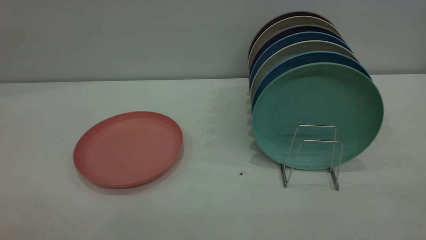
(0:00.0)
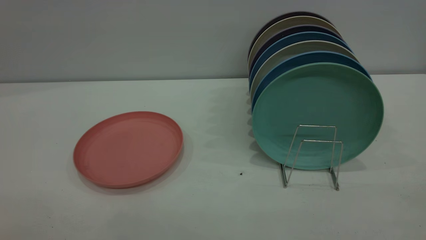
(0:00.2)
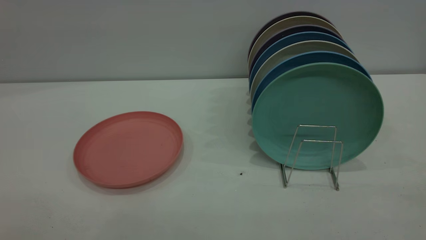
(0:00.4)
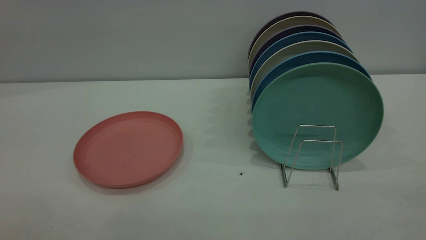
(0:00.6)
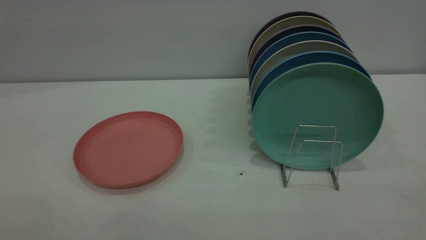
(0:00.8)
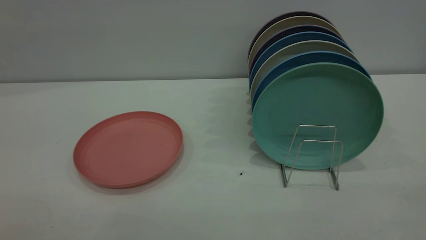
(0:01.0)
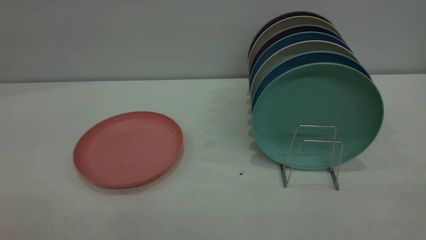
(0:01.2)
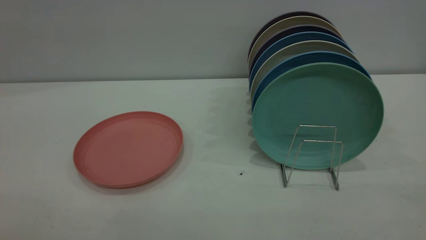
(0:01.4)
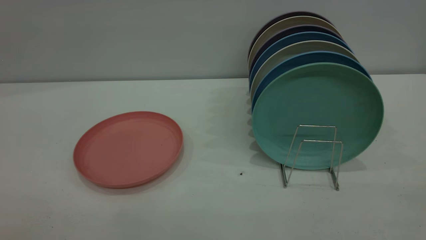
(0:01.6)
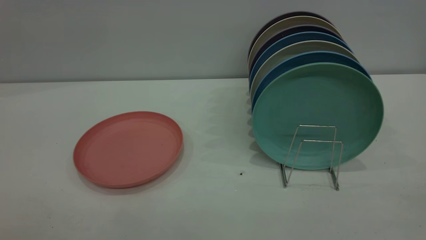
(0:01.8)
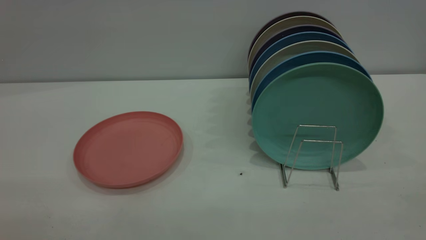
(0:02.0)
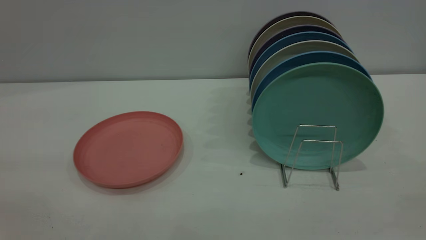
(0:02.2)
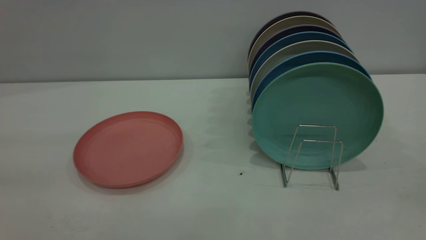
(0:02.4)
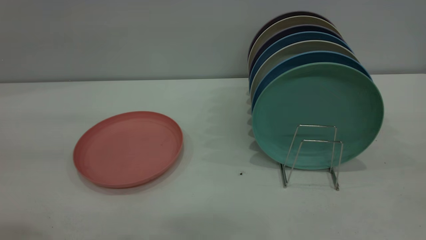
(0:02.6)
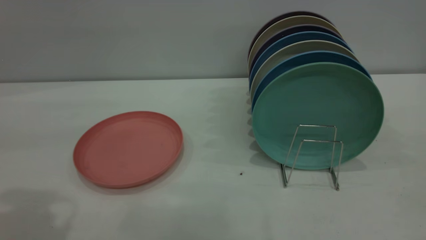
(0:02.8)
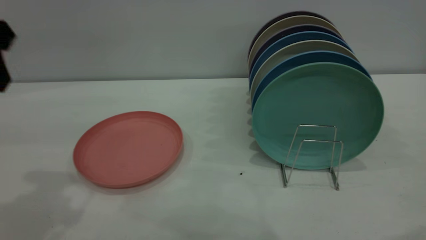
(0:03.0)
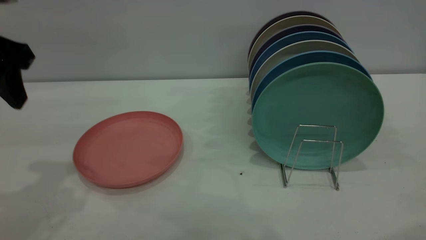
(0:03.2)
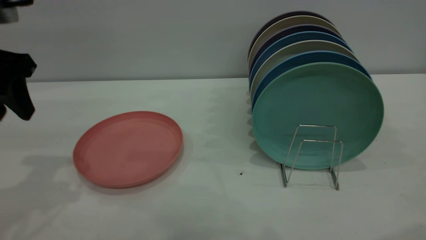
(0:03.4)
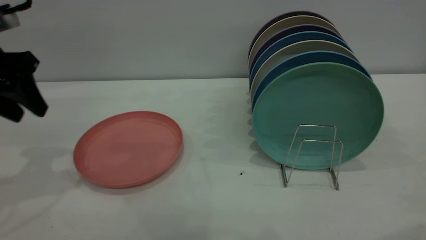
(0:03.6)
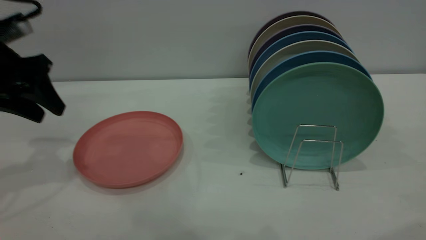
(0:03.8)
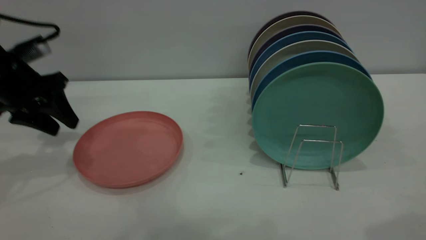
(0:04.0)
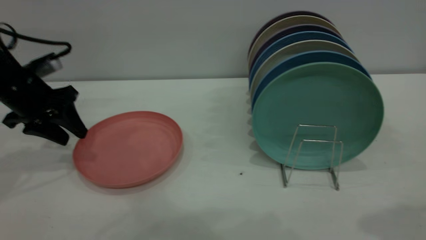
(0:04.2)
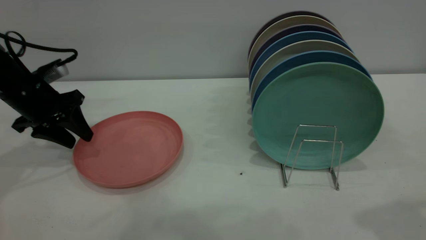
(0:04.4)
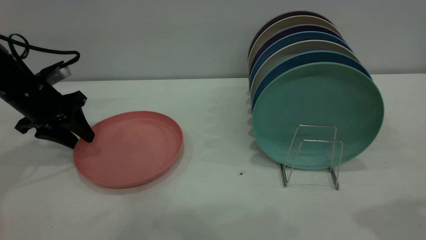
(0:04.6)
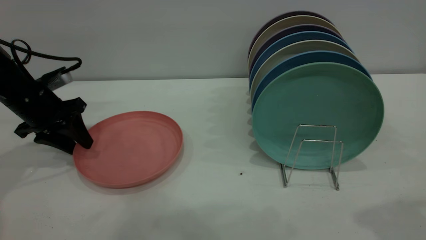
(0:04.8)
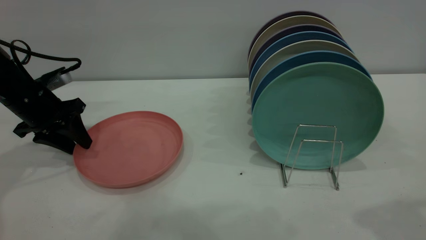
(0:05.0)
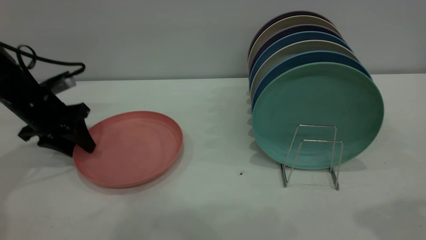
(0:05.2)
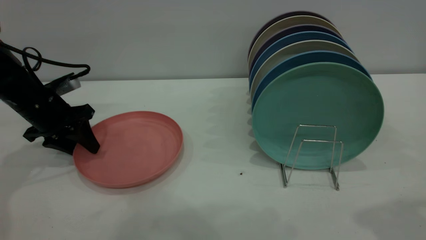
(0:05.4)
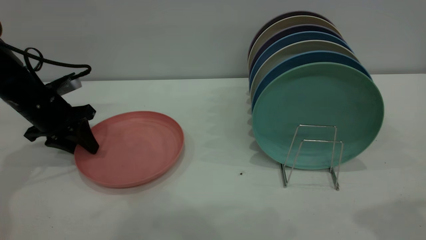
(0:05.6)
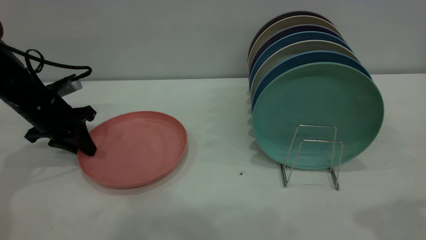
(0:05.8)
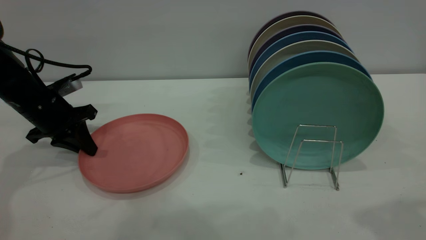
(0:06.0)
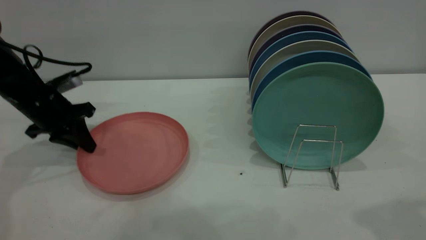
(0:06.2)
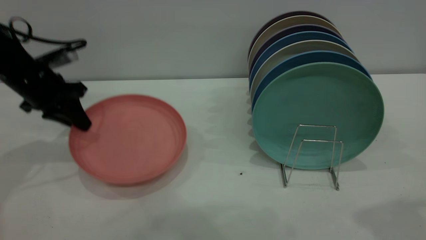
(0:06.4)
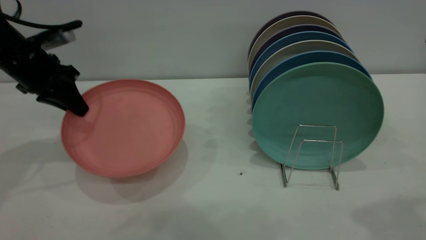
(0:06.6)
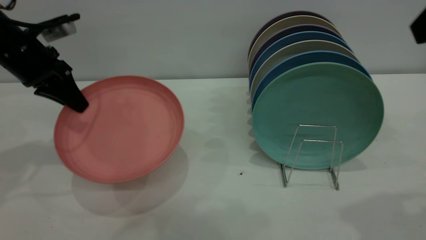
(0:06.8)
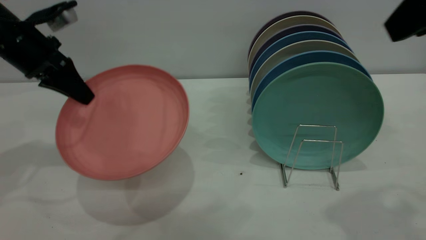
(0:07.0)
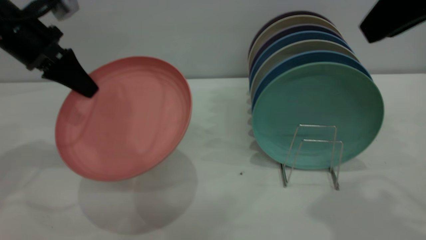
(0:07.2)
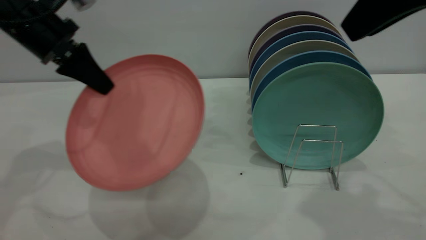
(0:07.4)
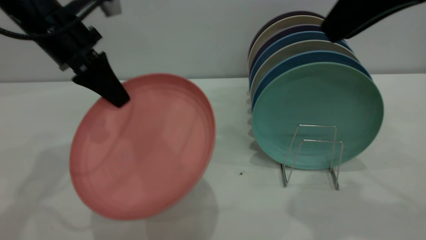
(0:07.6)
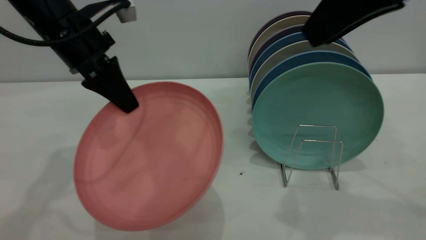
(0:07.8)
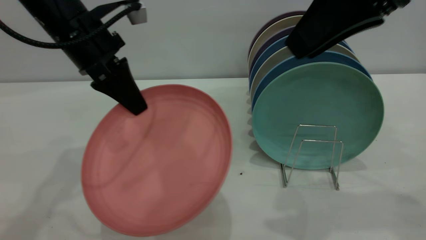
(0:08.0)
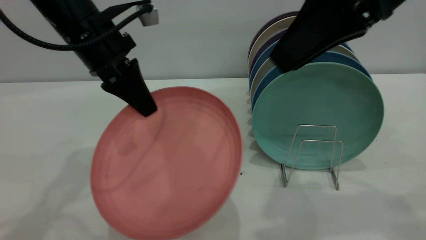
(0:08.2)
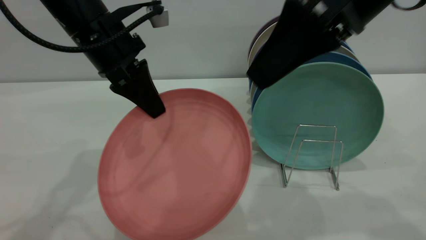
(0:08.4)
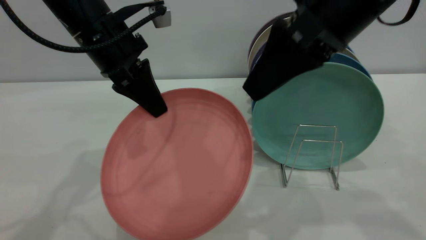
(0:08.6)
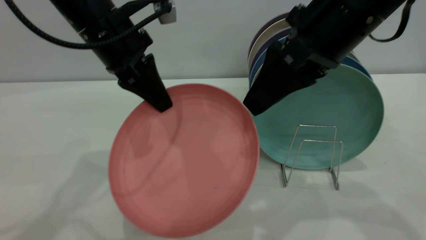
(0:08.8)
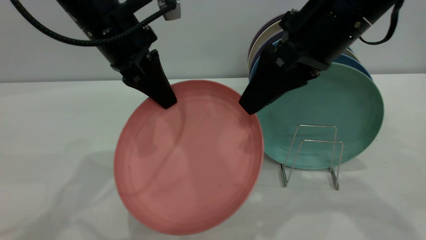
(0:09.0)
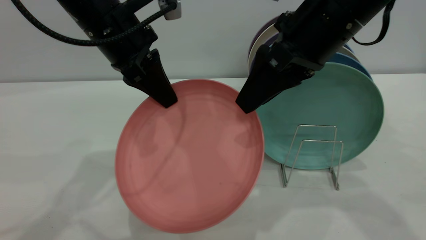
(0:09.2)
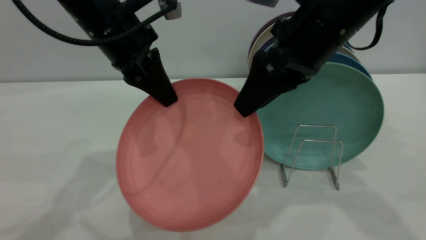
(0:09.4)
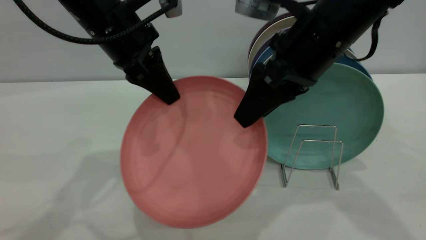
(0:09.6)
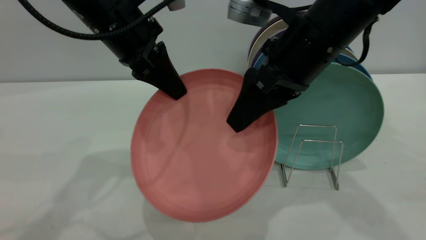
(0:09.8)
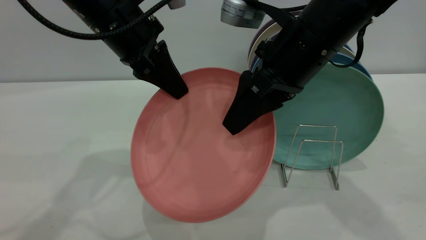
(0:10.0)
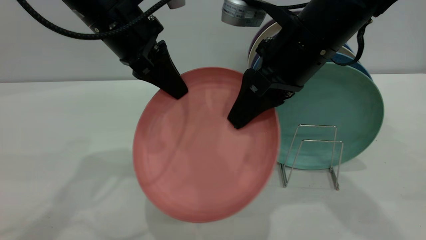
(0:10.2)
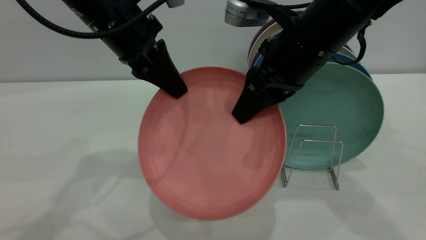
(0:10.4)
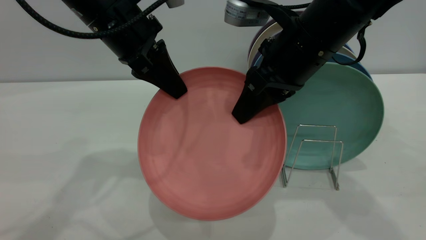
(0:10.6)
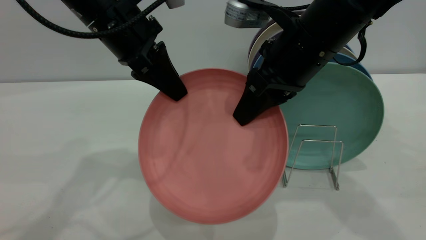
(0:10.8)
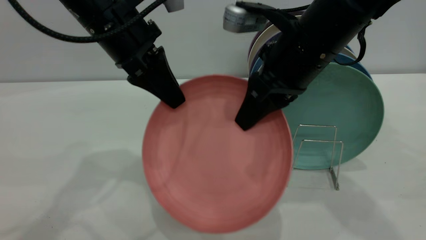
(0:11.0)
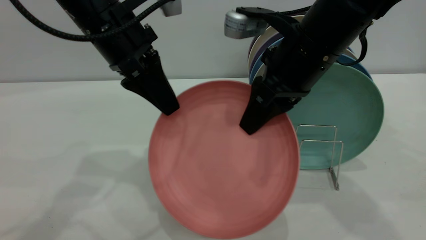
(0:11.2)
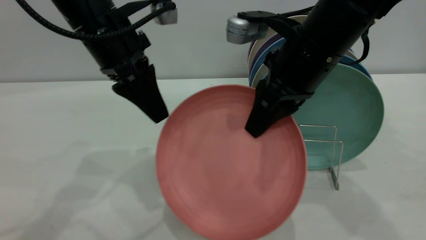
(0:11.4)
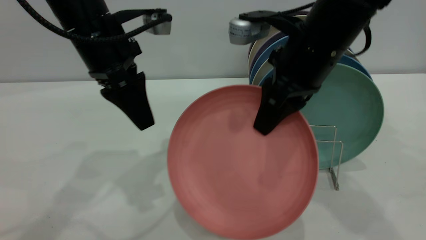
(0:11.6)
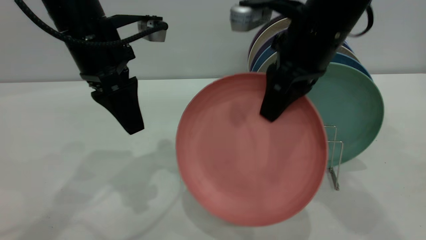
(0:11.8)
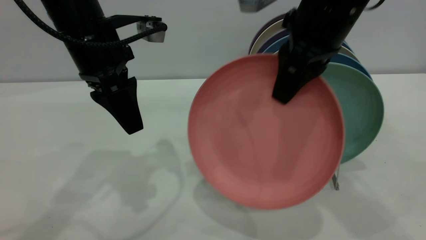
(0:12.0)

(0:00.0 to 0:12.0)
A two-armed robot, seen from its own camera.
Task of the whole recording: put the plate on the plate rack.
Step, 0:00.0 - 0:06.6: Pick up the plate with the left gripper.
Step, 0:06.8 - 0:11.4: Pass the plate from the left gripper to the right gripper.
0:01.6 - 0:03.0: The left gripper goes about 30 cm forward.
0:03.0 - 0:04.4: The left gripper travels downward and forward by roughly 25 cm.
0:04.4 - 0:06.0: The left gripper closes.
0:06.0 - 0:07.6: The right gripper travels forward and to the left by about 10 cm. Meanwhile the left gripper is displaced upward and to the right by roughly 15 cm.
0:07.6 - 0:09.0: The left gripper heads to the right, covering some 5 cm. The right gripper travels downward and to the left by about 10 cm.
0:09.0 - 0:10.4: The right gripper closes.
0:10.4 - 0:12.0: The left gripper opens its fingers. Meanwhile the right gripper heads upward, covering roughly 5 cm.

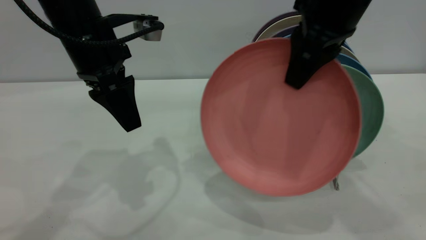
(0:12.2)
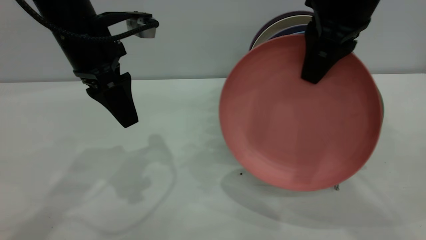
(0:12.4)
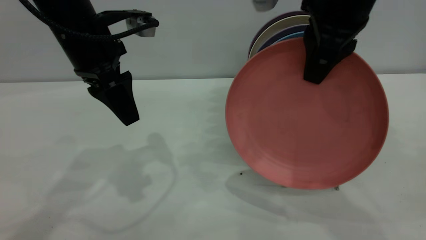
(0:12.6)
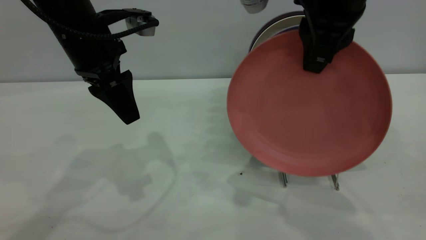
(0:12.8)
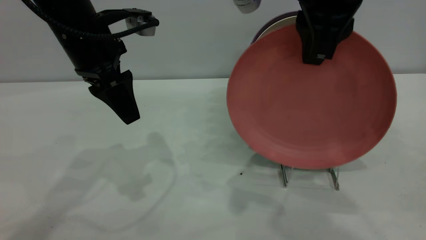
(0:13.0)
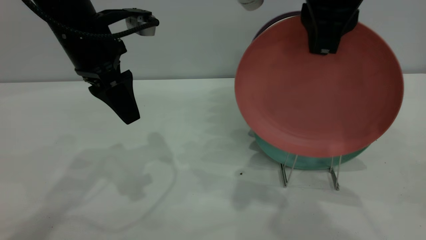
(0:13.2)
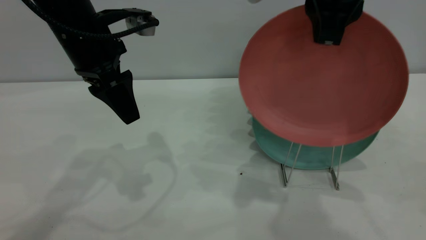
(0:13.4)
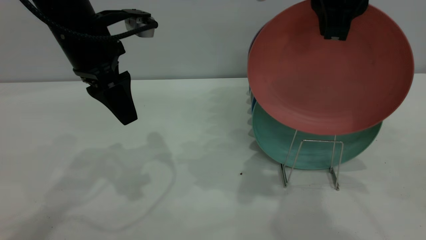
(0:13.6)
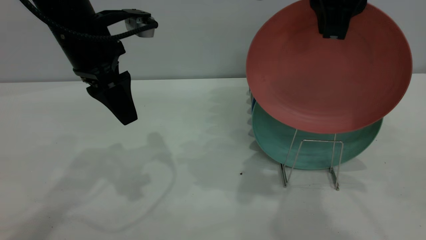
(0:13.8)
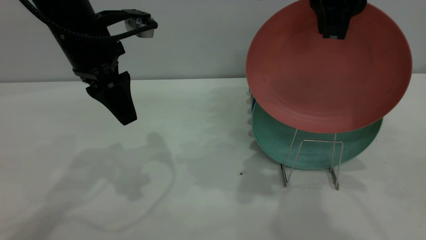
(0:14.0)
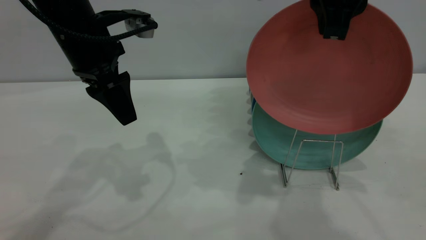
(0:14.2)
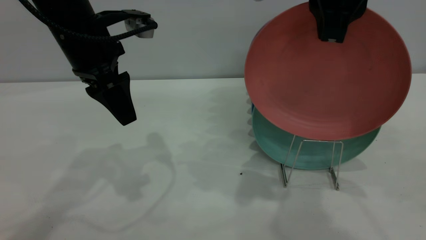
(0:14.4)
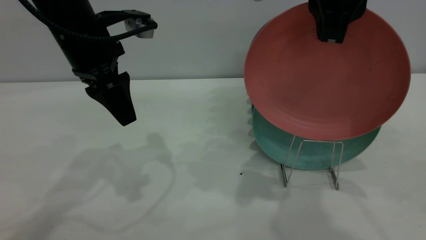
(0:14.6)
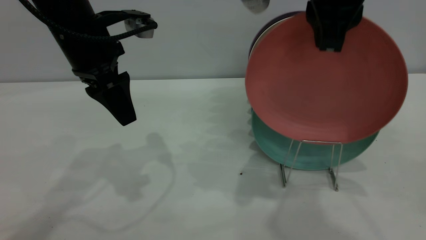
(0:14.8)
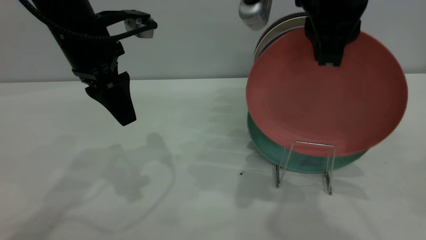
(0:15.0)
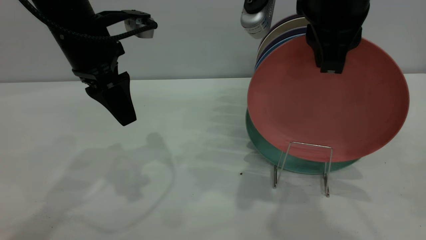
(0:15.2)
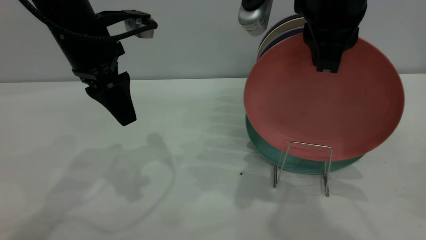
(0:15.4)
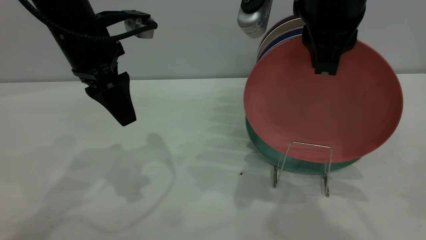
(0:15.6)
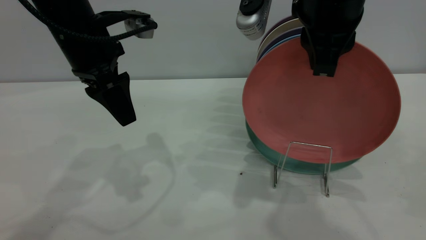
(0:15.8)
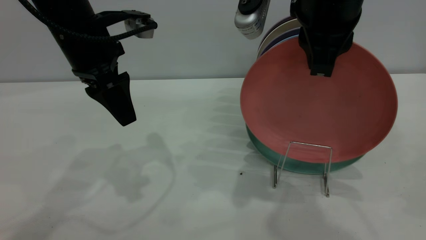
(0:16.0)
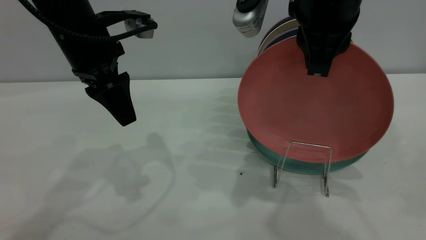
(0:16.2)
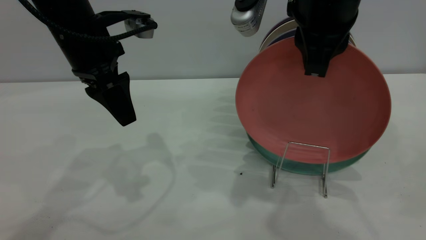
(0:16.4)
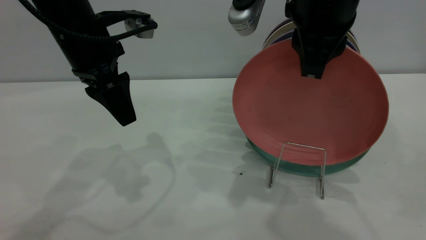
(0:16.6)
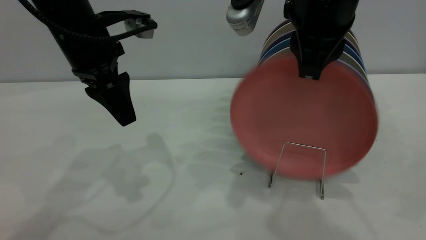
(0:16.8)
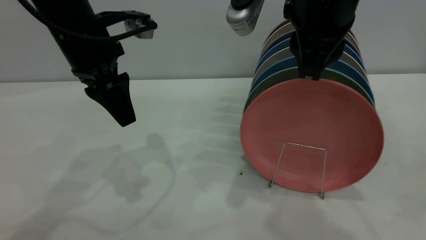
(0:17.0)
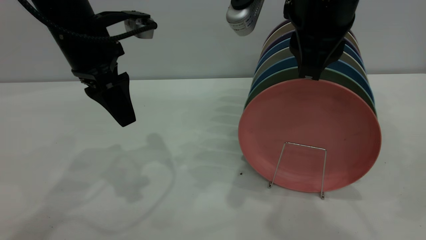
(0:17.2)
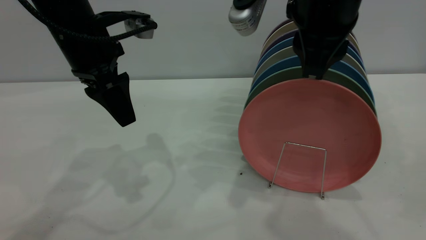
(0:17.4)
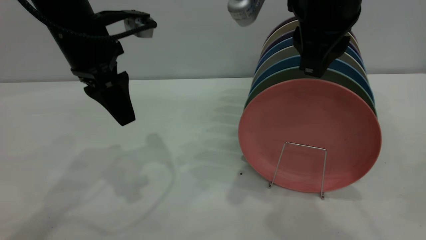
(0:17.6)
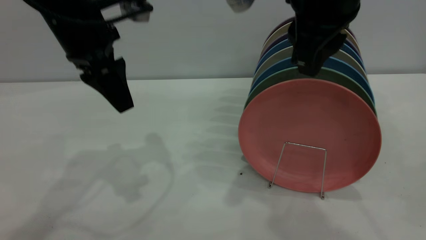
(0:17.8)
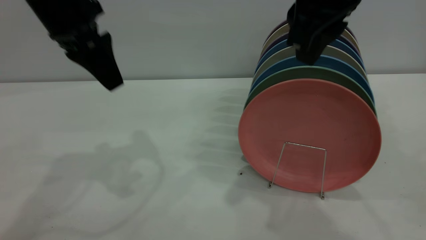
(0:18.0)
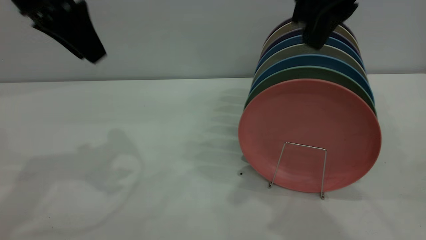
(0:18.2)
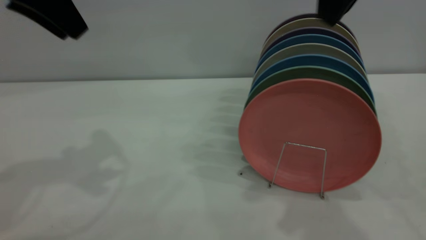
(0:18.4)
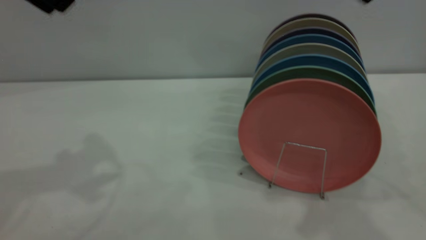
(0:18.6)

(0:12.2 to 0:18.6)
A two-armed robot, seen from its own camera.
Task of the whole recording: put the plate on the plate rack.
Step, 0:12.2 - 0:18.4: Place the plate on the shelf.
0:12.2 - 0:13.8: The right gripper shifts by some 5 cm.
0:13.8 - 0:17.0: The grippers stay close to where they were, moving slightly.
0:17.0 - 0:18.6: The right gripper heads upward and to the right, covering approximately 15 cm. Meanwhile the left gripper shifts about 15 cm upward and to the left.
